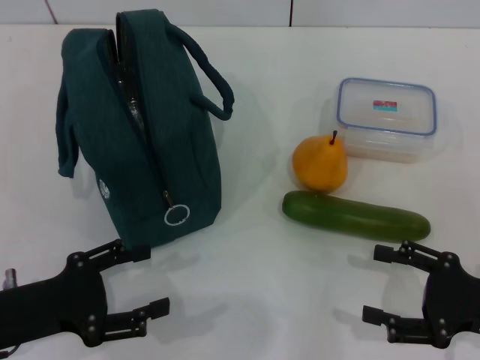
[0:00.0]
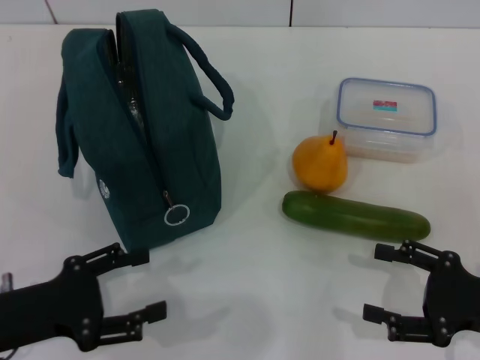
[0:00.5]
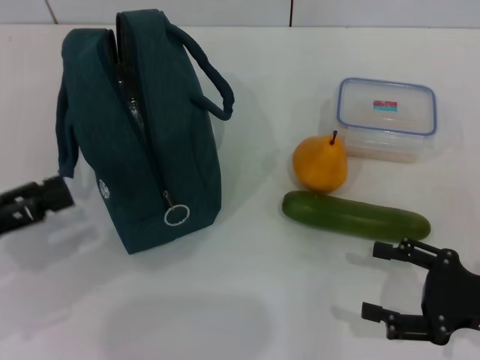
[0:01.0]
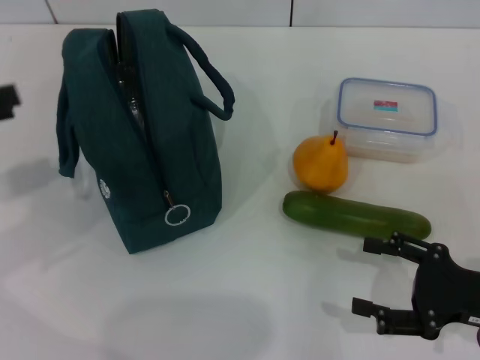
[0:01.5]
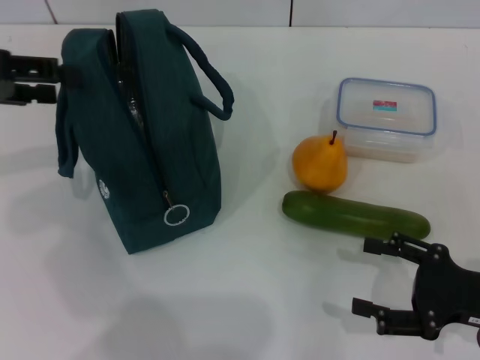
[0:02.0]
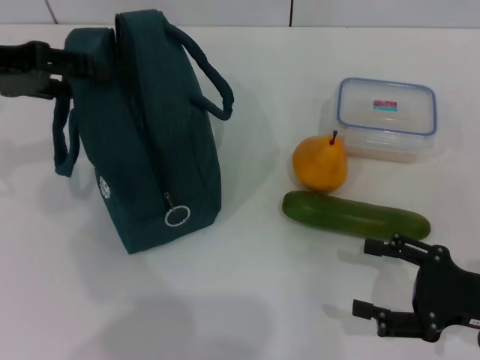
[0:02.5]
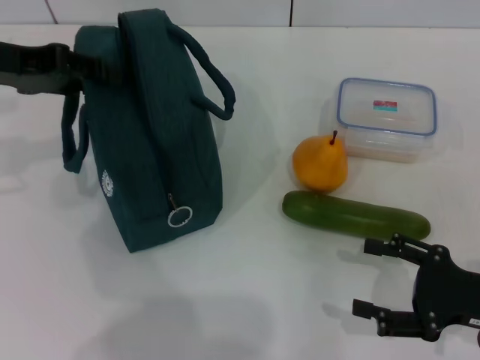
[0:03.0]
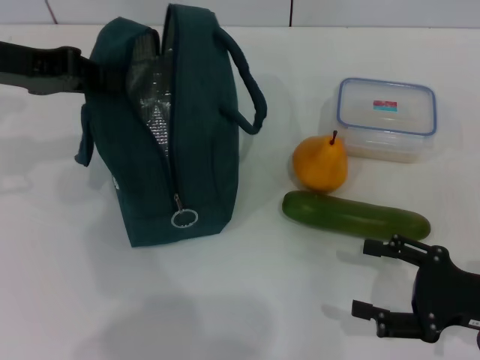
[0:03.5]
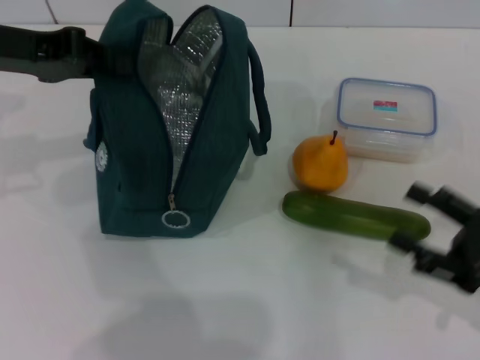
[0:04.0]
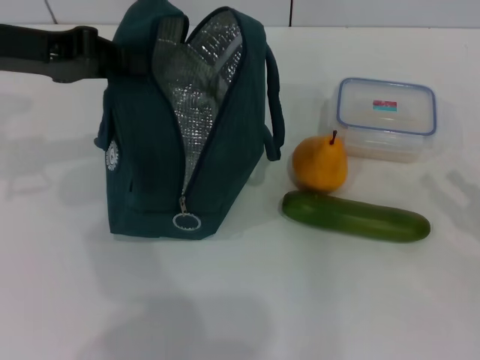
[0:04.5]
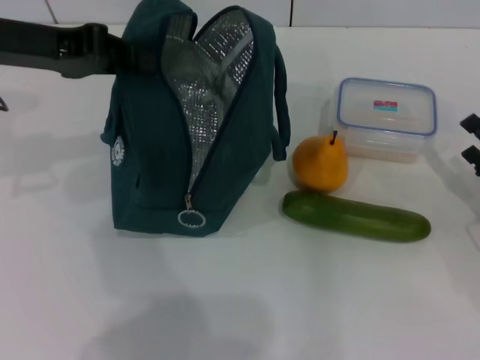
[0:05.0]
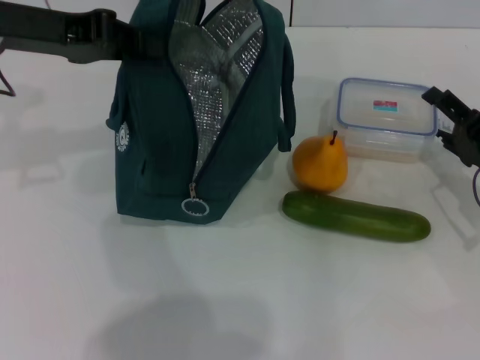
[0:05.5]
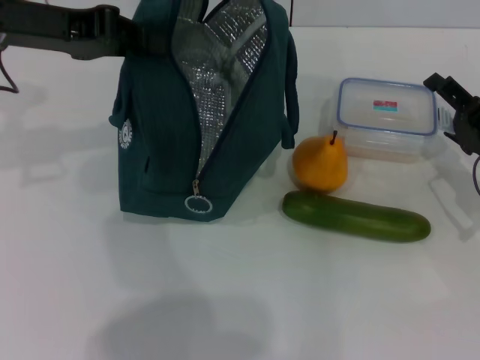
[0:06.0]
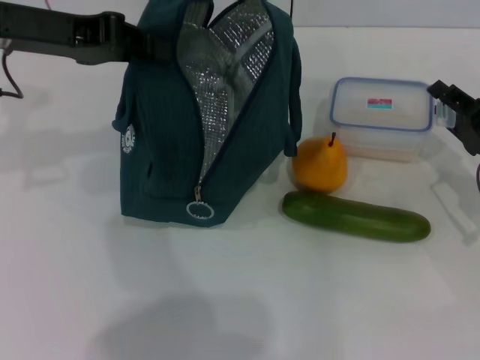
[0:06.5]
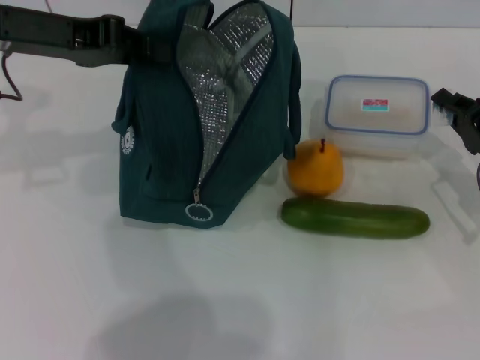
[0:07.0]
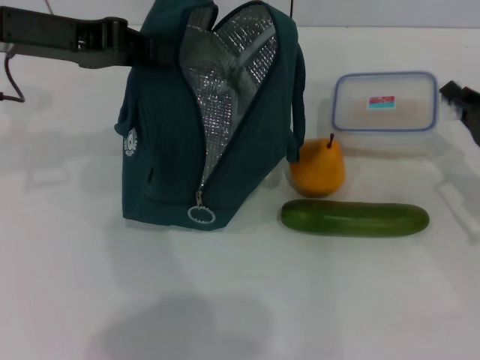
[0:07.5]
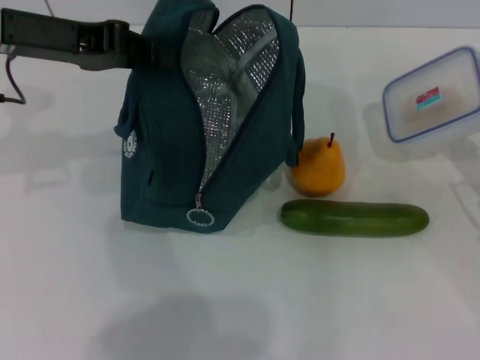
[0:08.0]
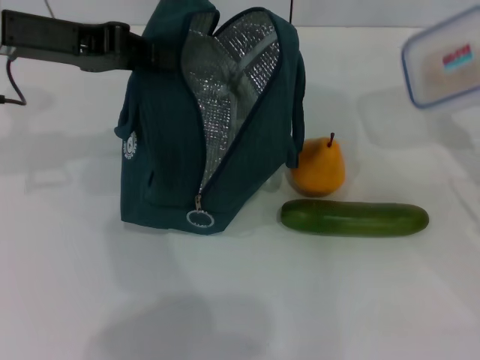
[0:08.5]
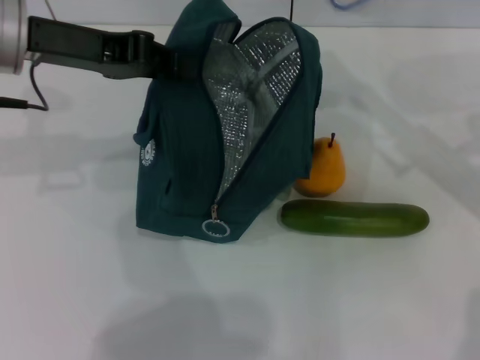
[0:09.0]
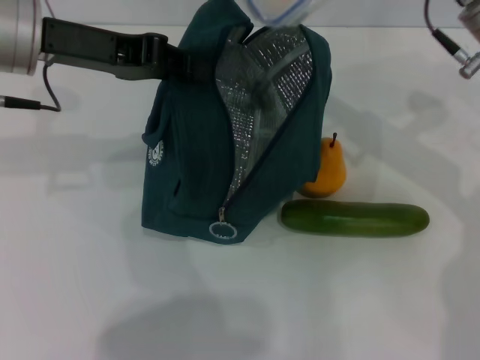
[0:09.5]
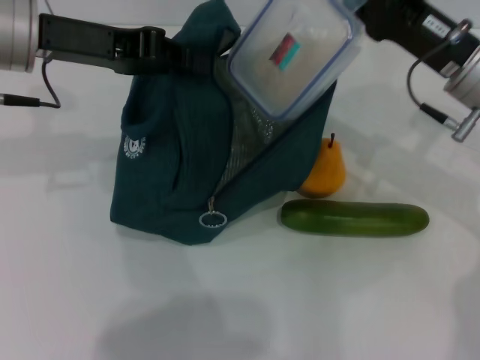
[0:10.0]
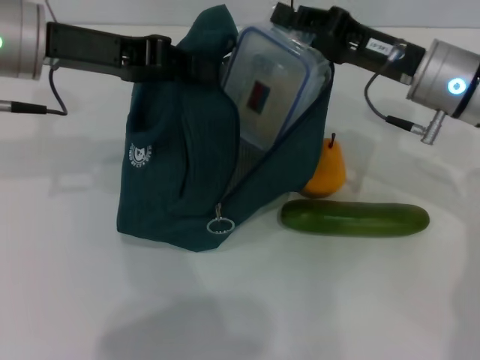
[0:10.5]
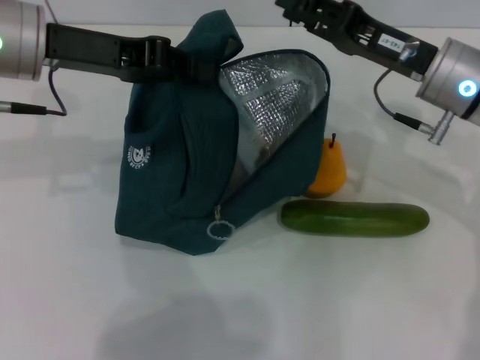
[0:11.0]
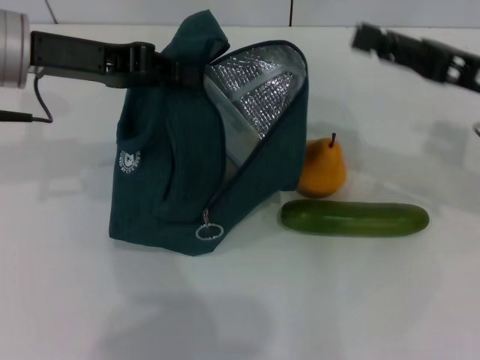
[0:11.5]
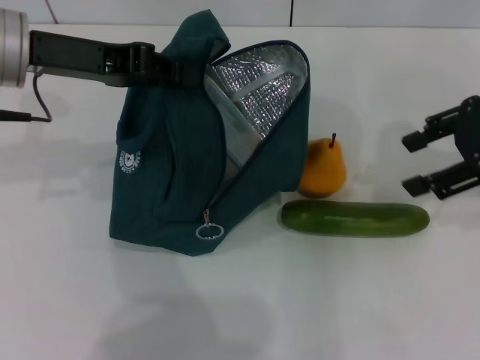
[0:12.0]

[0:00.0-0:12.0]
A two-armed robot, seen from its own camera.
Step, 0:00.0 to 0:03.5: Hold the lunch bag with your left hand.
Step, 0:04.0 to 0:07.0: Pick up the lunch box with your right hand.
Step, 0:07.5 to 0:11.0: Place the lunch box into the lunch bag with your right hand.
0:00.0 to 0:02.0: The left gripper heads upward and forward, covering some 20 cm.
0:02.0 to 0:04.0: The left gripper moves to the right, roughly 5 cm, and closes.
0:04.0 to 0:06.0: The right gripper goes approximately 10 cm forward.
0:06.0 to 0:08.0: The right gripper closes up.
0:08.0 to 0:10.0: The right gripper travels to the left, upward and forward by roughly 15 cm.
0:10.0 to 0:12.0: The right gripper heads upward and to the right, covering roughly 10 cm, and opens its fingers.

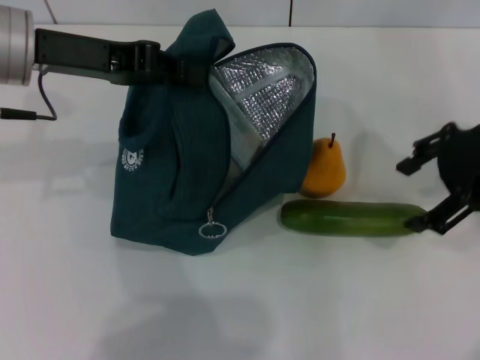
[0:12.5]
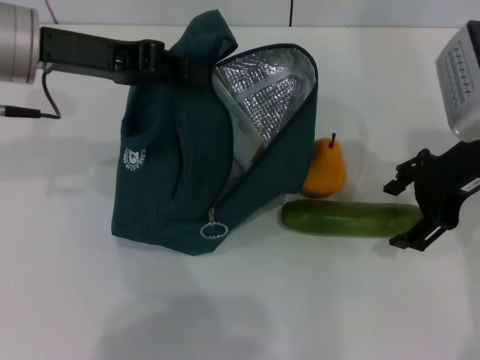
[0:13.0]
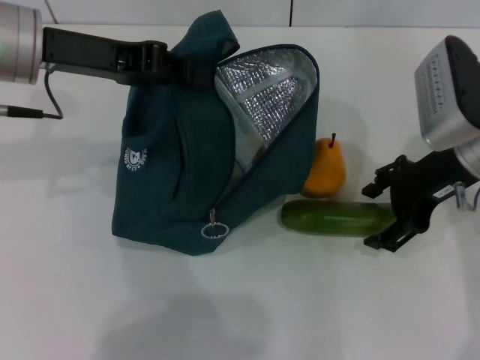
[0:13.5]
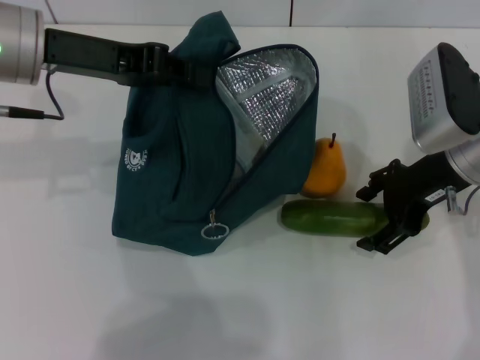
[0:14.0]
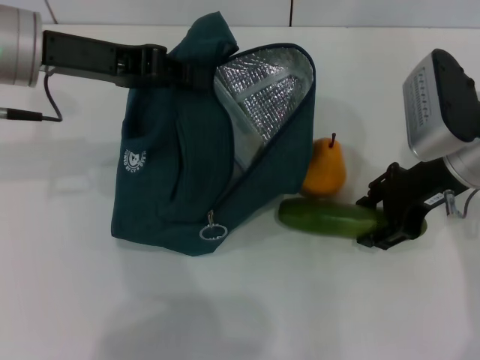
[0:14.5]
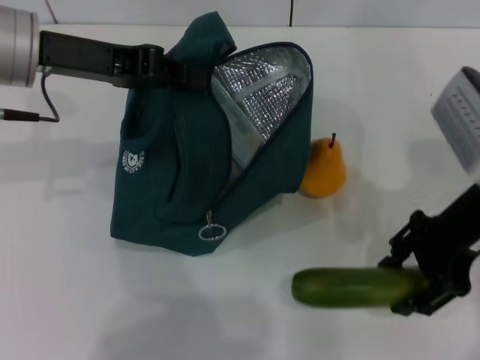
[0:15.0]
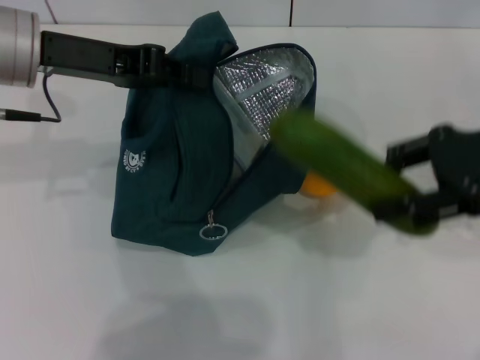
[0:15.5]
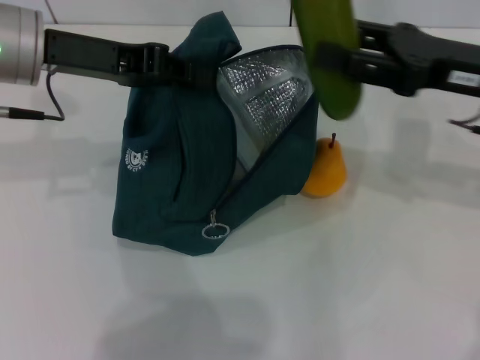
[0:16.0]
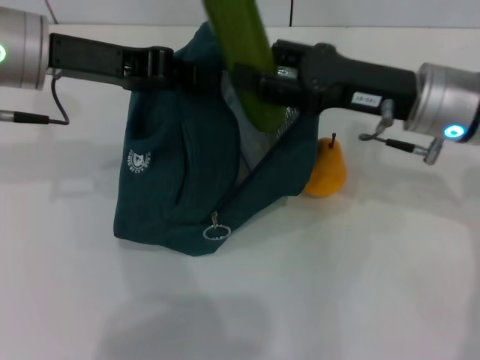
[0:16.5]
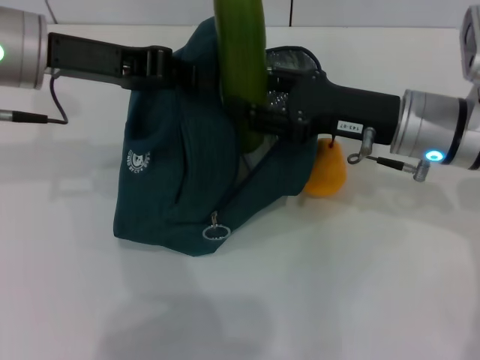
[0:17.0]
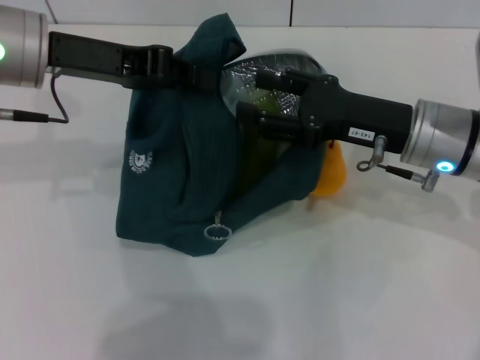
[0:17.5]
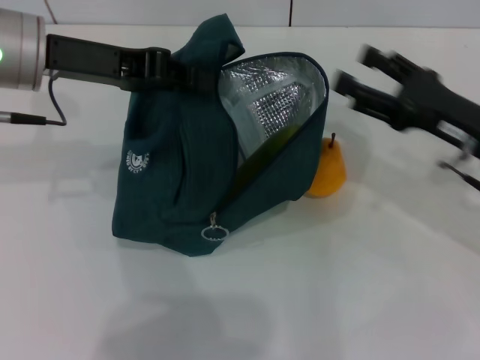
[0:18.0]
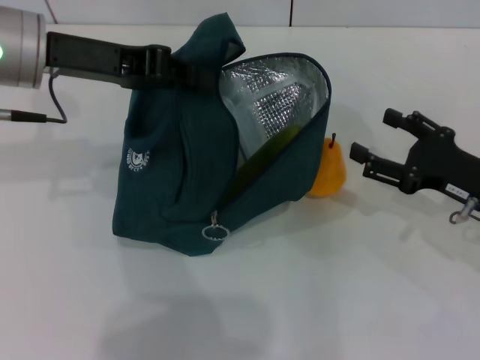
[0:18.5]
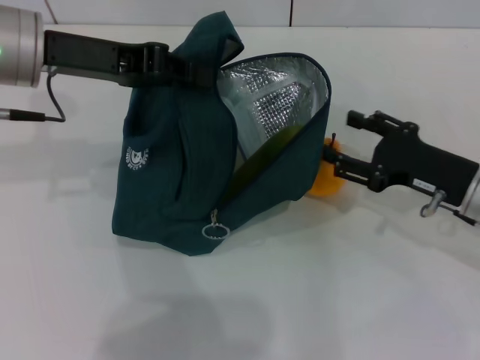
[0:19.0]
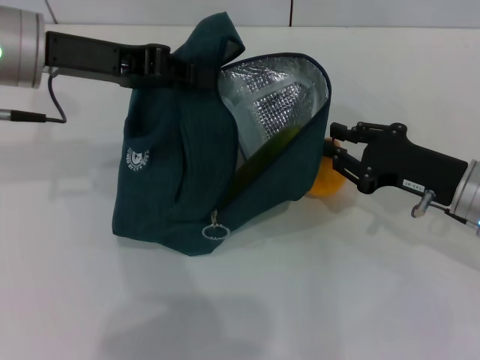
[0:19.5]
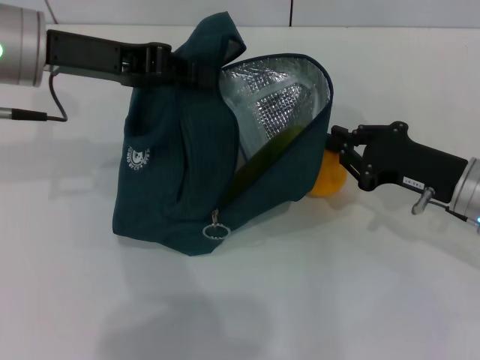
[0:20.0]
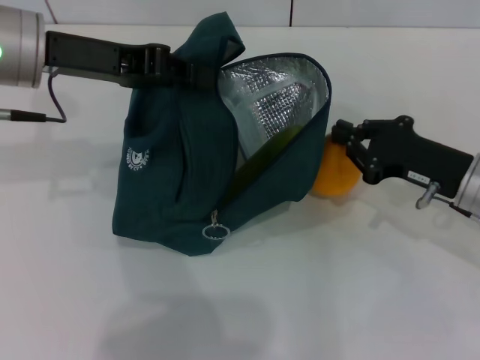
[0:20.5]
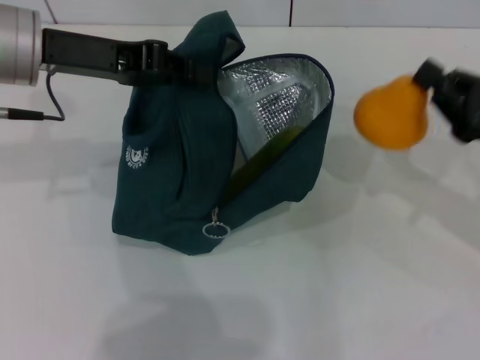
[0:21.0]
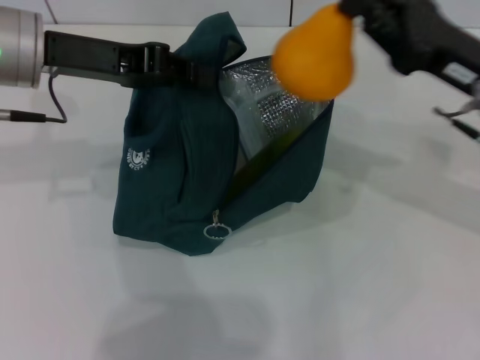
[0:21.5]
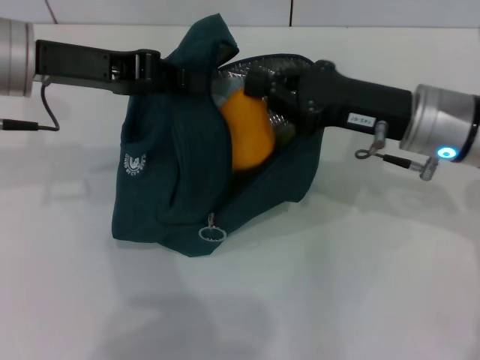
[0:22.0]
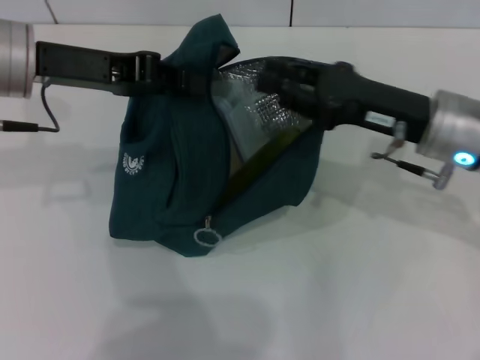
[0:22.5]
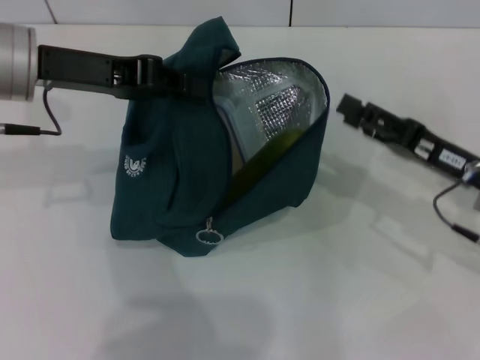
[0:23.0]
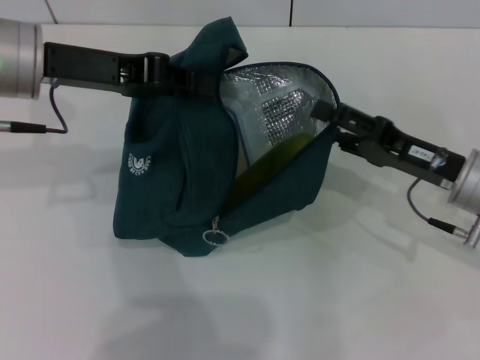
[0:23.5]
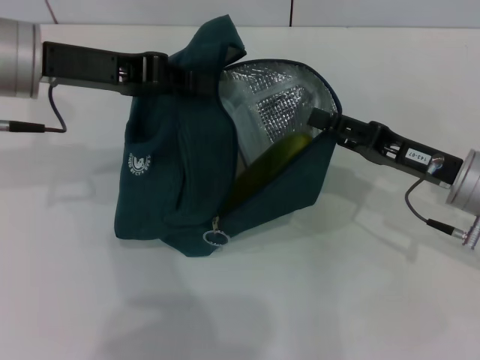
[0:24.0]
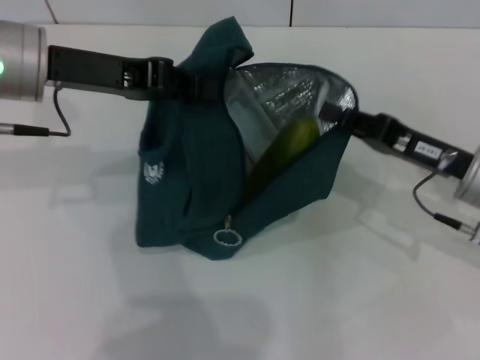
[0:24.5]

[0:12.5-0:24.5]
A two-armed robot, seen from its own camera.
Step, 0:15.0 to 0:17.0: Put the cucumber into the lunch bag with your right hand.
Step, 0:18.0 to 0:20.0: Grab the pear with your right hand.
0:12.5 to 0:14.5: The right gripper heads downward, covering about 10 cm.
0:14.5 to 0:16.5: The right gripper reaches approximately 5 cm to the right, then returns.
0:16.5 to 0:18.5: The right gripper moves to the right, downward and backward, some 15 cm, and opens.
0:18.5 to 0:20.5: The right gripper closes its fingers.
0:20.5 to 0:22.5: The right gripper heads upward and to the left, covering approximately 10 cm.
0:22.5 to 0:24.5: The right gripper moves roughly 5 cm, and opens and closes again.

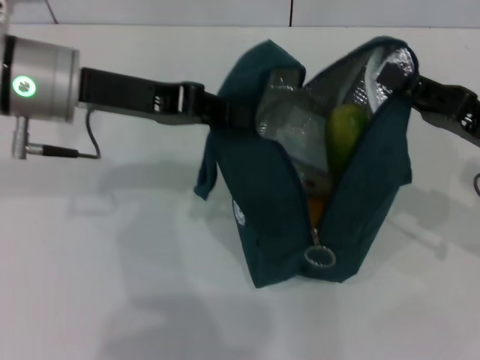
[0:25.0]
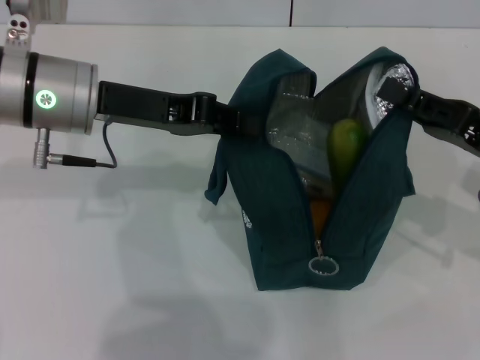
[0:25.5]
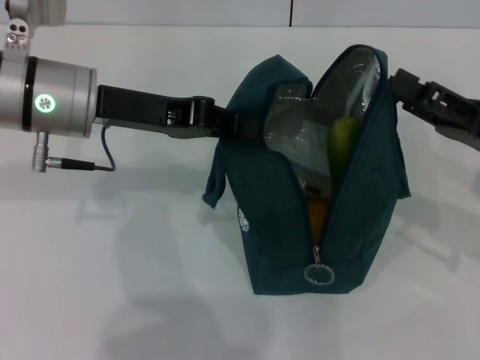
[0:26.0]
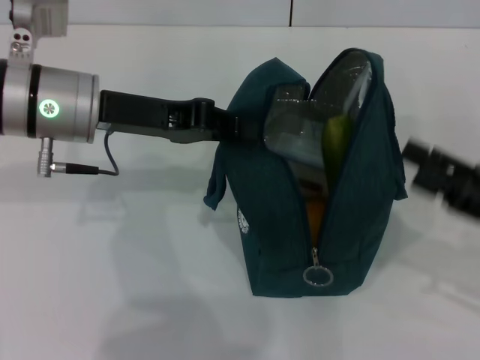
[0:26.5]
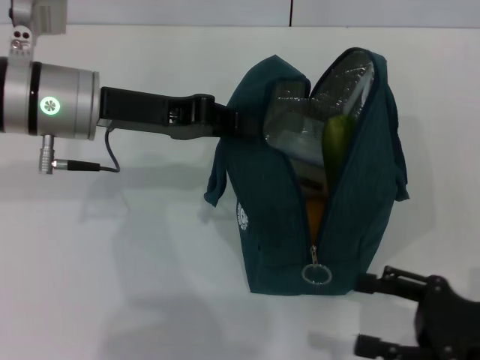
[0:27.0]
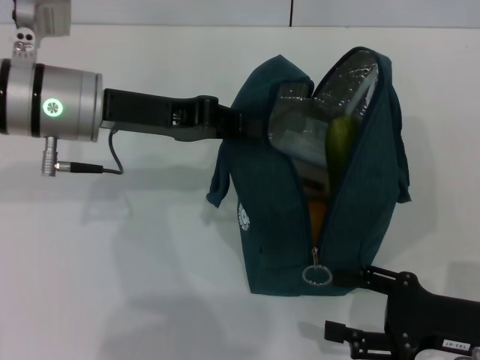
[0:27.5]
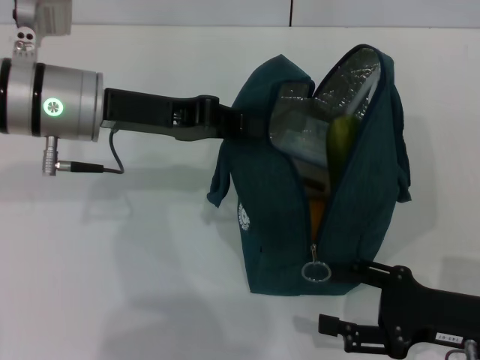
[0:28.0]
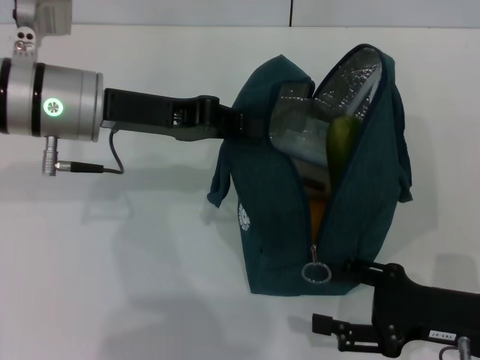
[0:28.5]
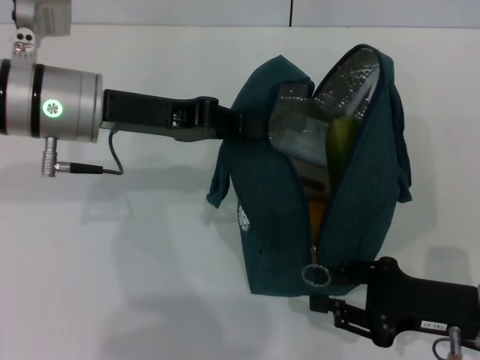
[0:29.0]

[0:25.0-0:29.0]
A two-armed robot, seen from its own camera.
0:25.0 to 0:27.0: The right gripper shifts some 15 cm backward and downward, and opens.
0:27.0 to 0:29.0: There are only small adjustments of the grippers.
